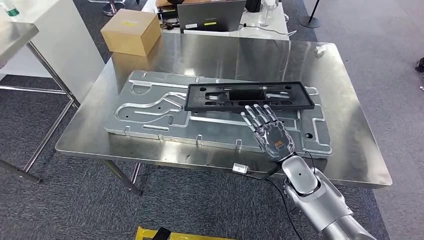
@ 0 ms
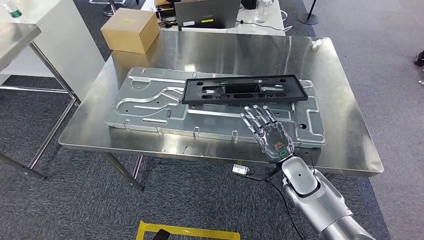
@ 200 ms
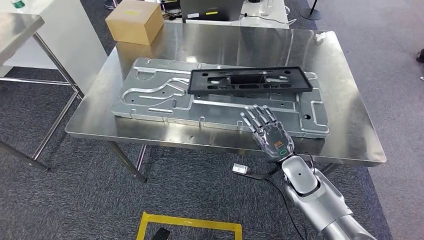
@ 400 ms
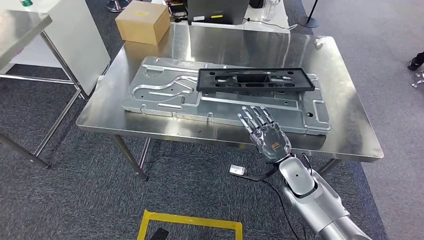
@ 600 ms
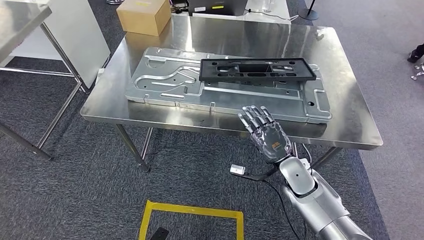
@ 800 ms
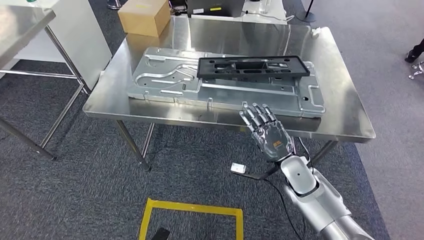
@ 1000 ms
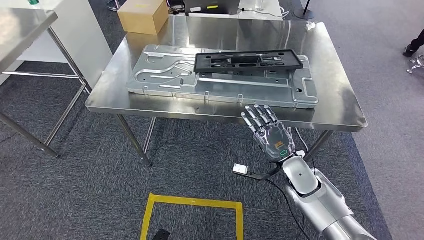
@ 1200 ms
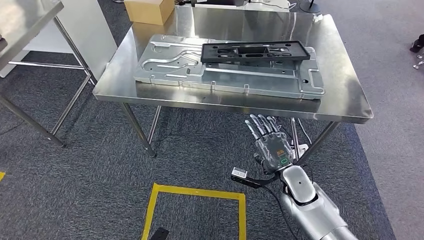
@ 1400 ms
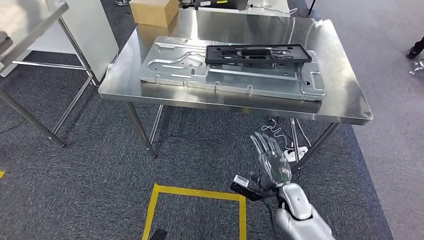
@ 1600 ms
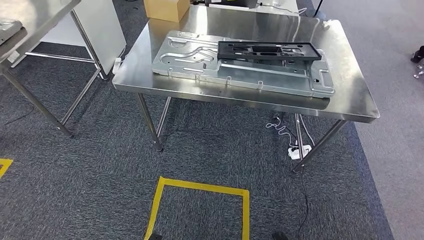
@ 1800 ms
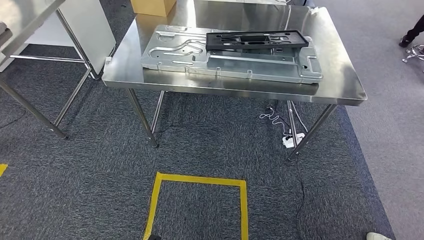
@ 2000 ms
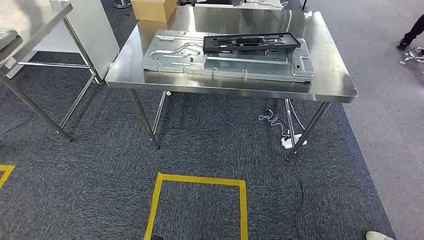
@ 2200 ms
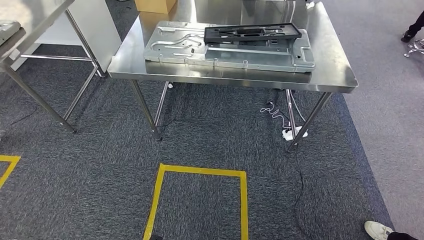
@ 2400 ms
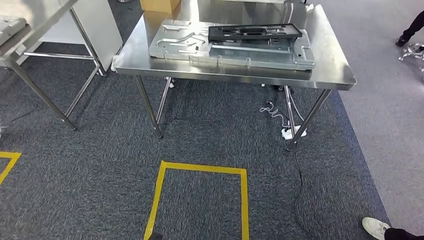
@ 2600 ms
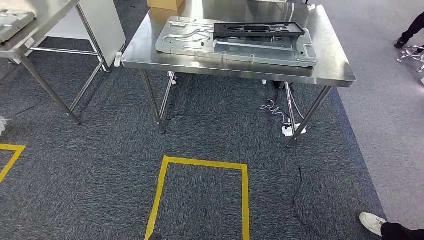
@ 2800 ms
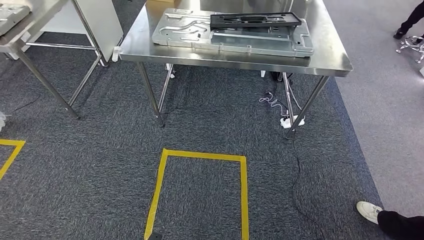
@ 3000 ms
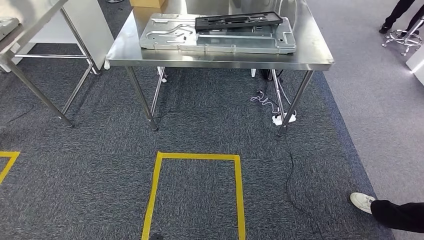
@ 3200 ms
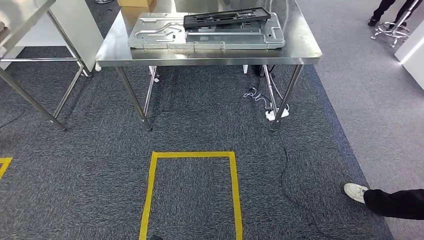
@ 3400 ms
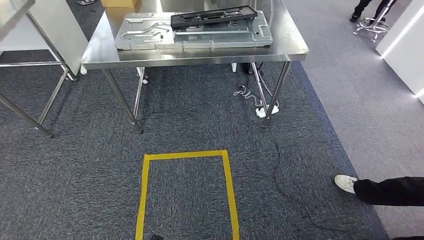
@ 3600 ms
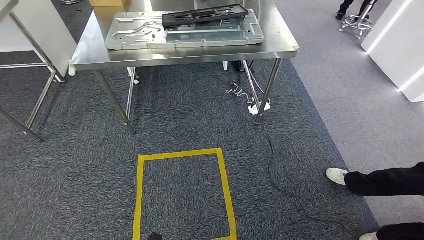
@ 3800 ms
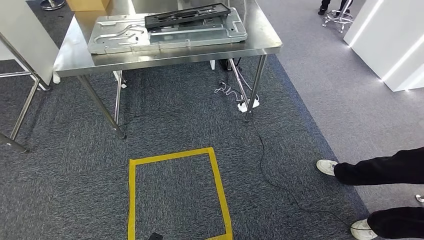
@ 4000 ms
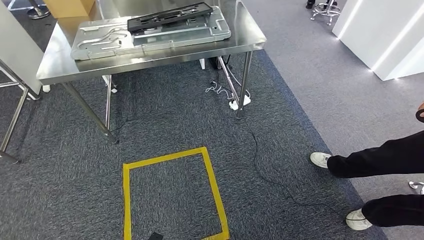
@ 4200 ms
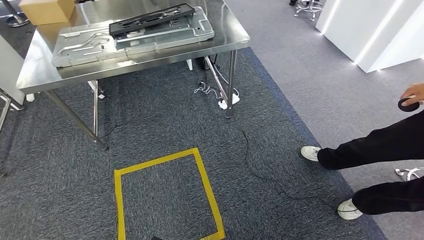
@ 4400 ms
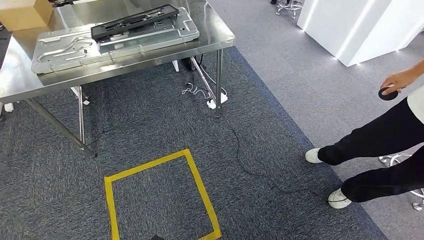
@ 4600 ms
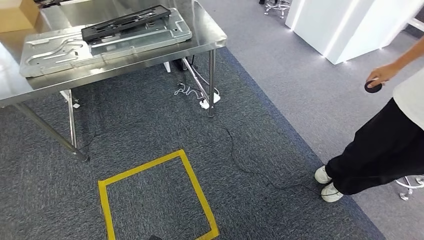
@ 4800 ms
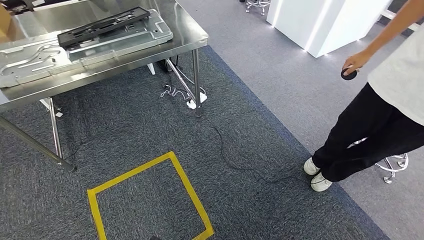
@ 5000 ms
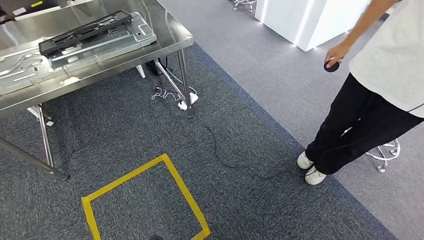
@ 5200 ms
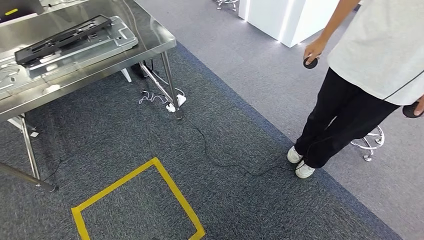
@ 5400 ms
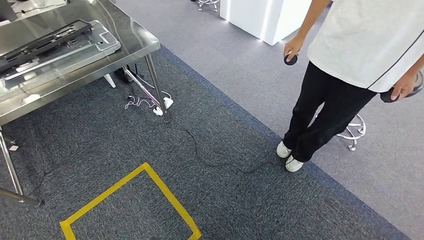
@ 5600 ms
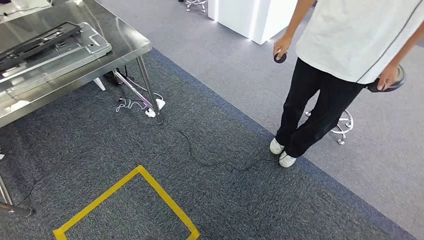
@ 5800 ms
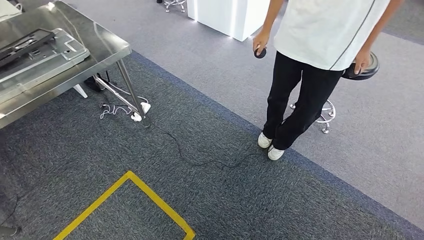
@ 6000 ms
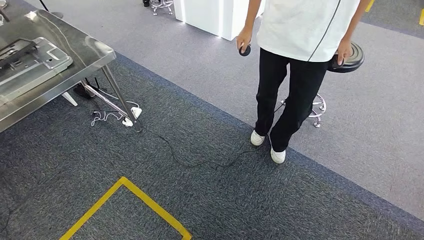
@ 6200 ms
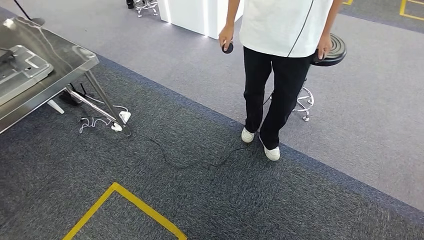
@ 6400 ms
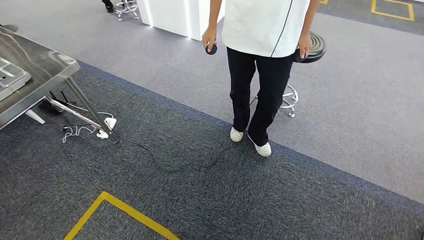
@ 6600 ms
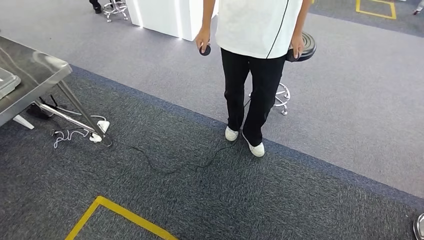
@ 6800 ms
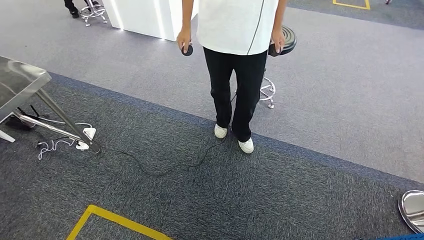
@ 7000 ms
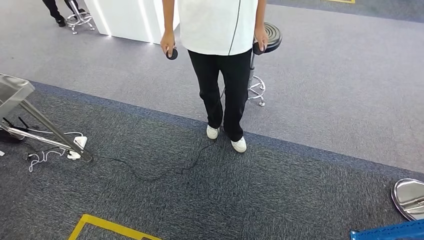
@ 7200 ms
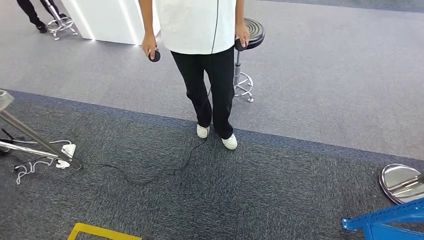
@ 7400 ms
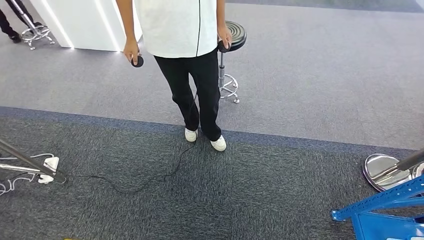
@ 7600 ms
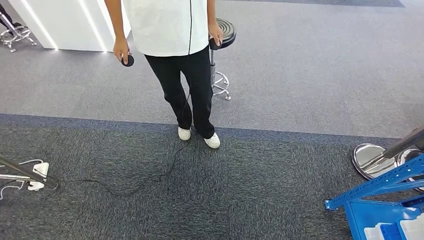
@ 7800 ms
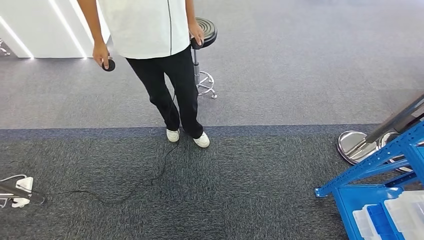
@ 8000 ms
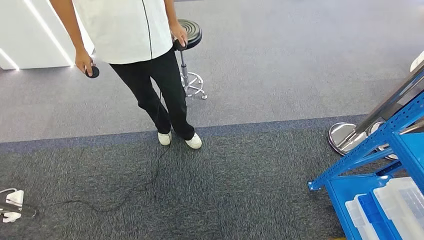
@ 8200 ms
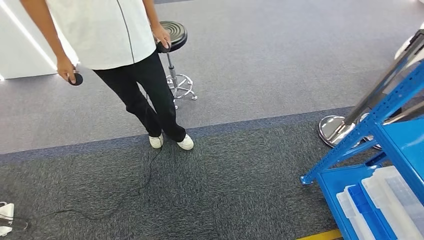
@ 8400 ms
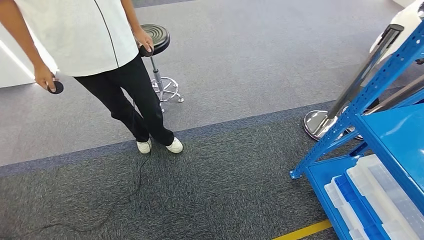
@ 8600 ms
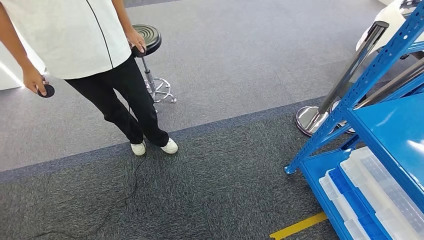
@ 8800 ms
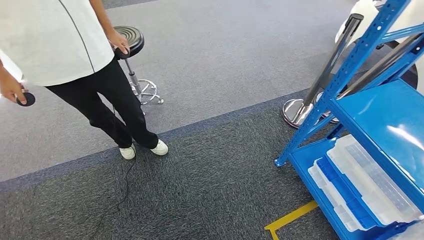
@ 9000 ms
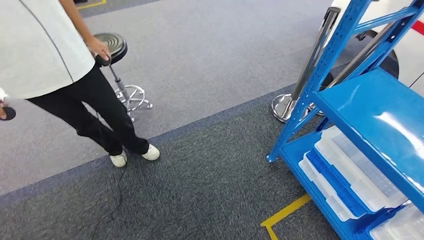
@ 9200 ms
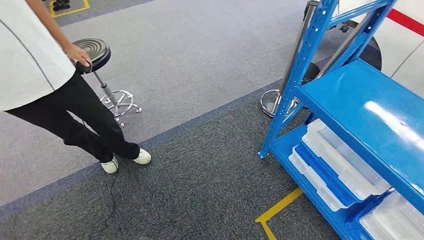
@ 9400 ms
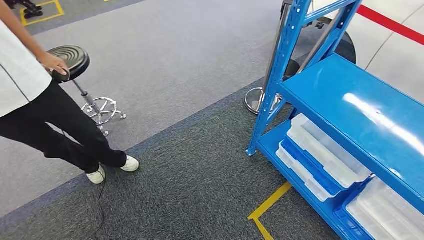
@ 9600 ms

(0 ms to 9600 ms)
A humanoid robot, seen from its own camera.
Step, 0 ms - 9400 ms: Move to the initial position of the shelf.
